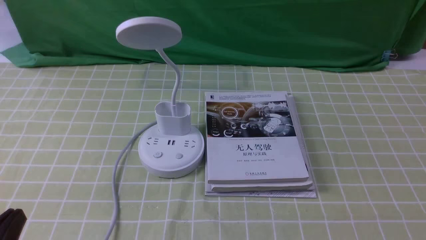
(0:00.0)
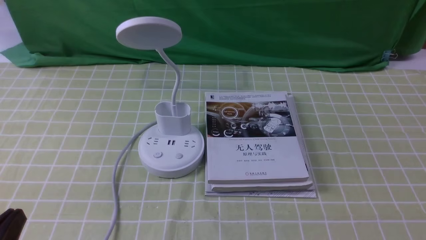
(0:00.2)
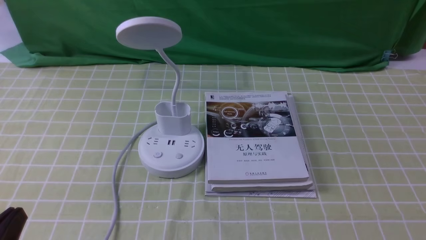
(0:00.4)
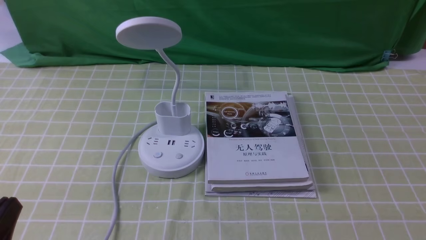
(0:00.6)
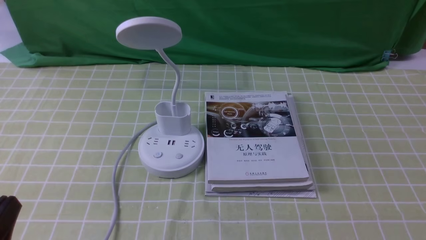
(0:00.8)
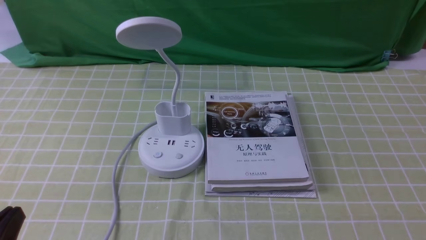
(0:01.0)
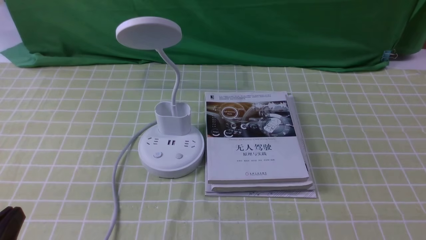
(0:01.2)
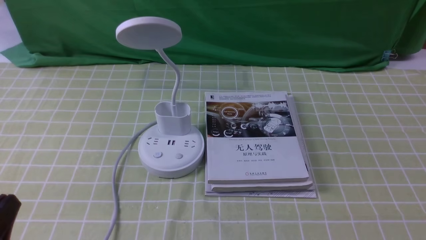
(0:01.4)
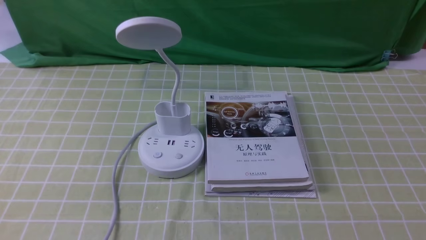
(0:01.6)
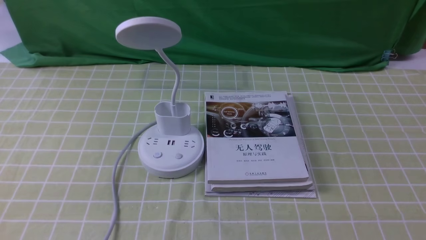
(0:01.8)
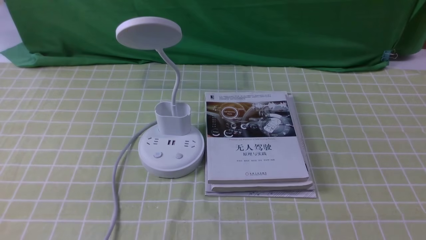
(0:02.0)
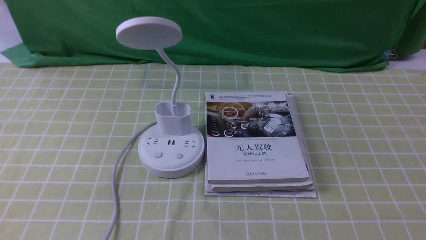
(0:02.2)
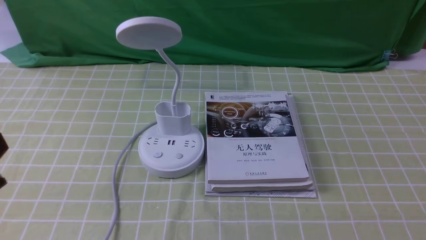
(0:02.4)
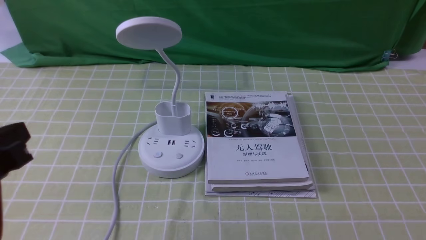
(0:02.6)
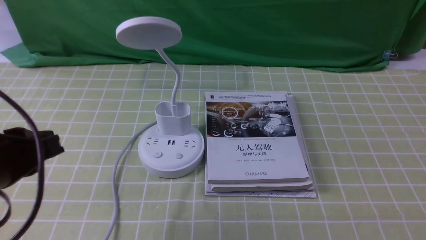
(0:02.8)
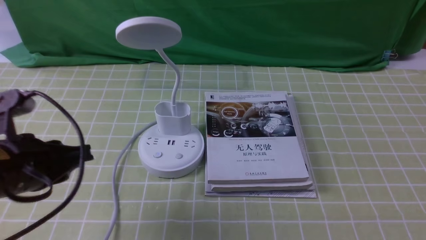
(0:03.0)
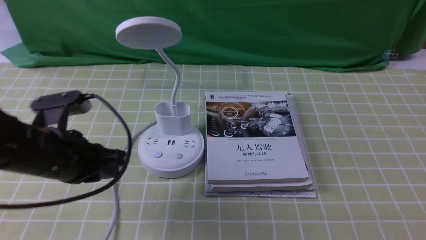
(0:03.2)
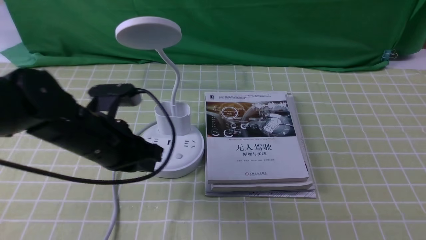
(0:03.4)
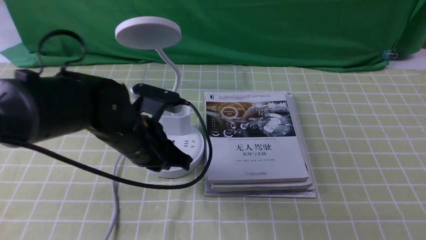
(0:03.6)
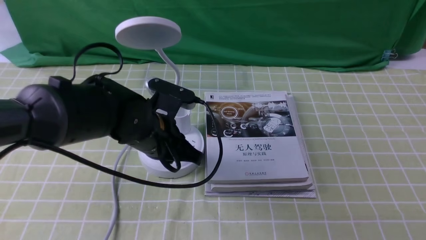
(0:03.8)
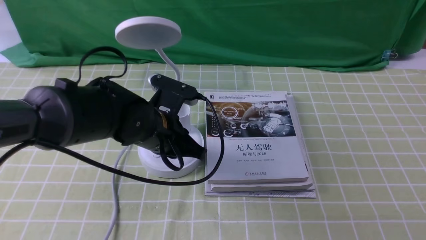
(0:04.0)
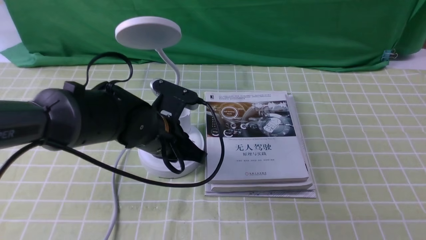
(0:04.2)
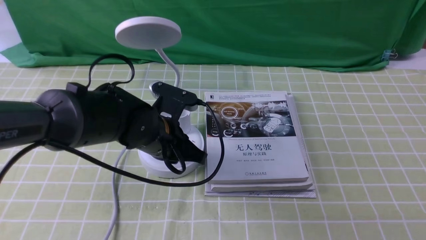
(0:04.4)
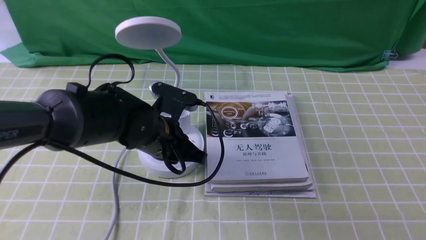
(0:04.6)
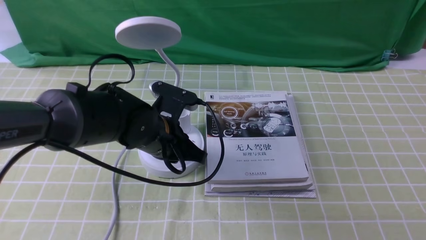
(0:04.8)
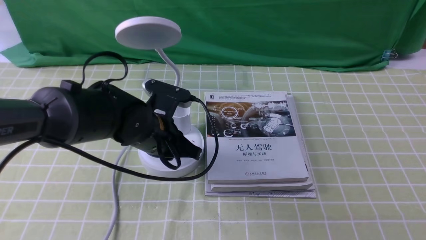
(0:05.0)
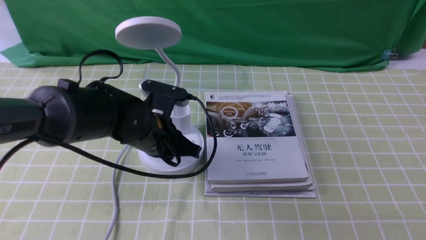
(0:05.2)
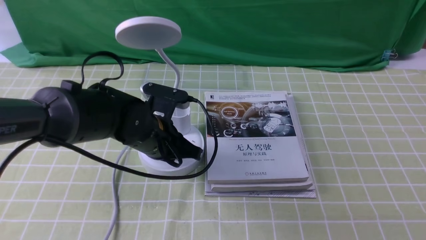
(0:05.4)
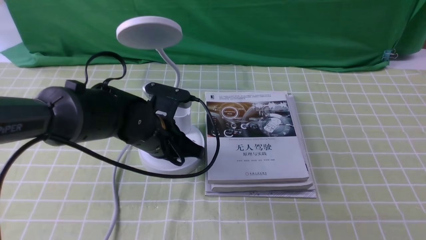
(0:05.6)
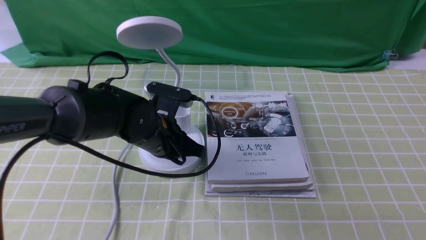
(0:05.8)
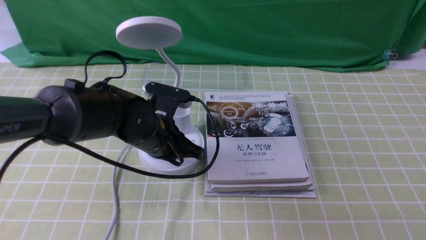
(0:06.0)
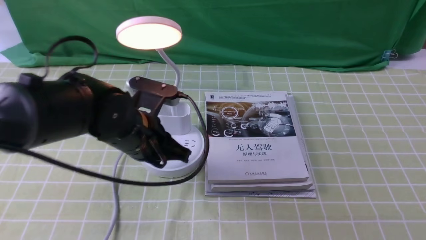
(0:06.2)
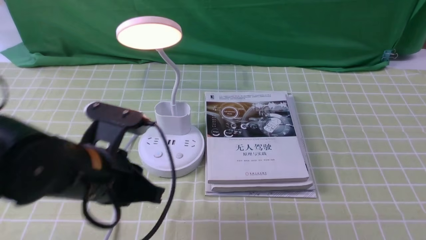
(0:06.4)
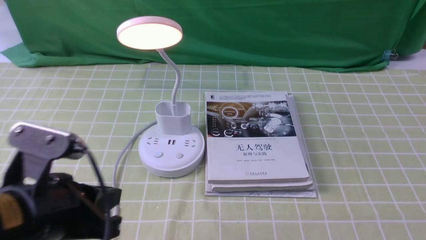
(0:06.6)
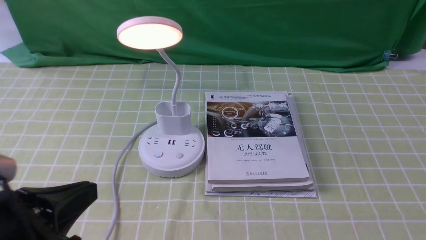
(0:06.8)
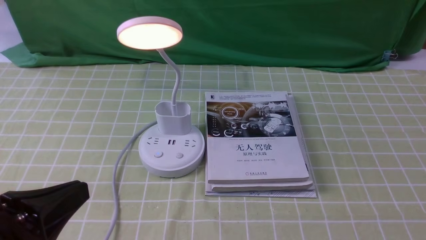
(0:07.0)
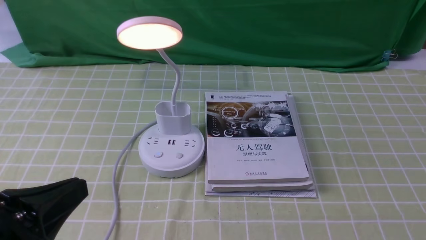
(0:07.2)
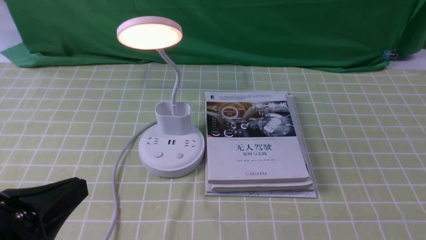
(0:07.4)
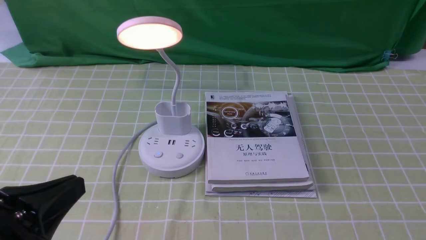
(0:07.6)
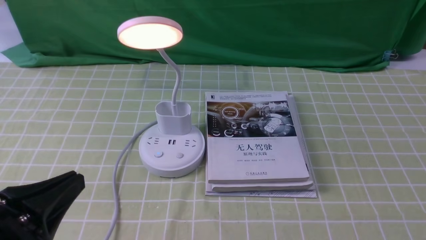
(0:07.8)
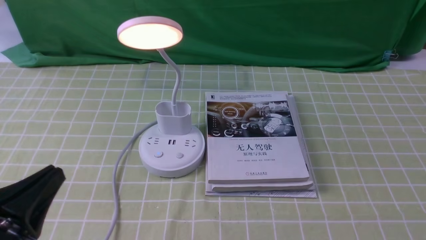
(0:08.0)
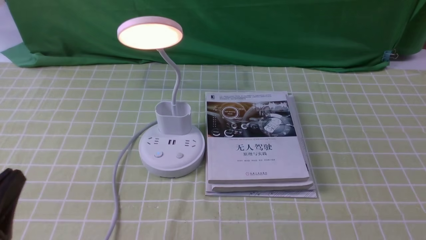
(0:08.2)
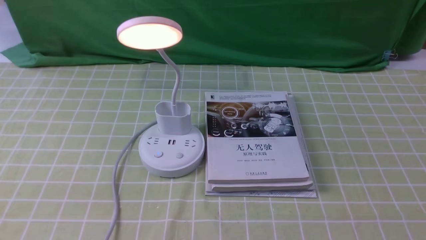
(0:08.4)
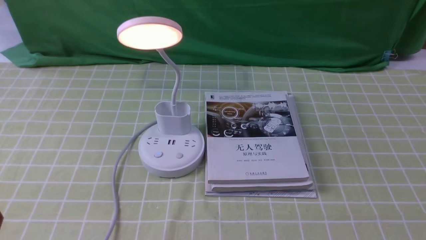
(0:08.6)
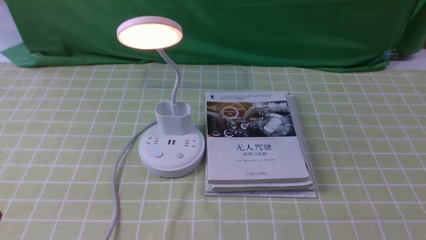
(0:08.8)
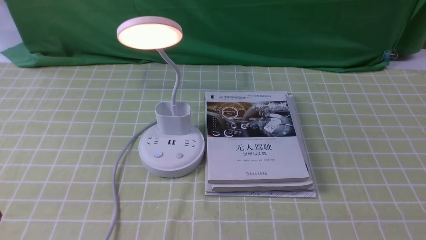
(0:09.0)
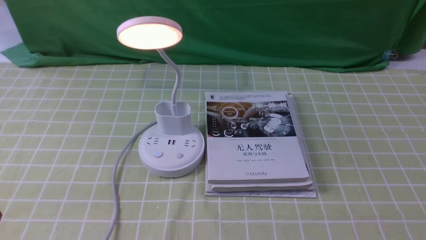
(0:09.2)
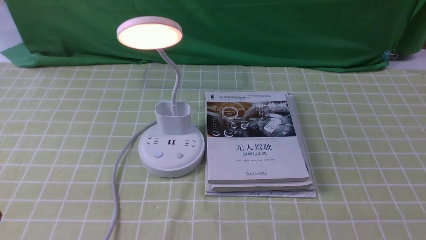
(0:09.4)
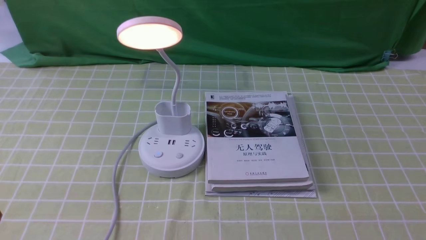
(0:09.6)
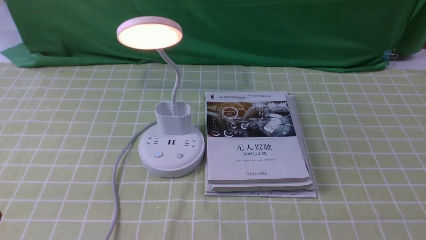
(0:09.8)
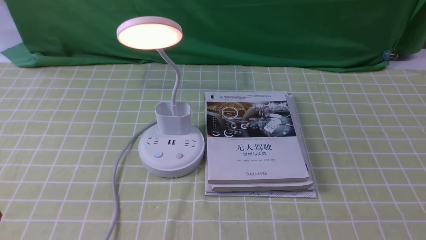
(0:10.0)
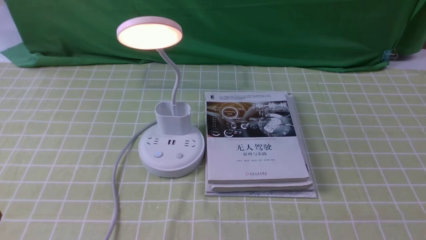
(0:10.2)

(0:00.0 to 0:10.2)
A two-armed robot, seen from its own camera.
Step, 0:00.0 - 0:06.2: use the left arm to press the button switch on the lamp holder.
0:01.4 - 0:03.0: The left gripper heads forward, covering some 15 cm.
0:03.0 - 0:04.4: The left gripper travels to the right, forward and downward by about 20 cm, and opens, then closes once more.
0:04.4 - 0:05.8: The left gripper closes up.
0:05.8 - 0:07.2: The left gripper goes some 25 cm backward and to the left.
0:07.2 - 0:08.8: The left gripper travels downward and to the left by some 10 cm.
0:08.8 - 0:10.2: Neither gripper changes place.
